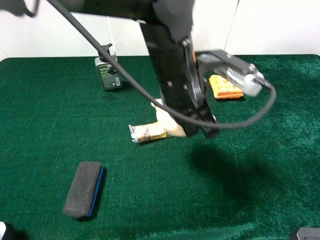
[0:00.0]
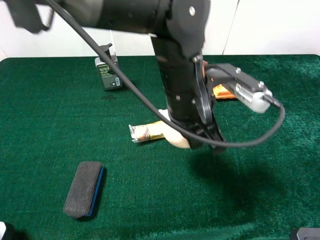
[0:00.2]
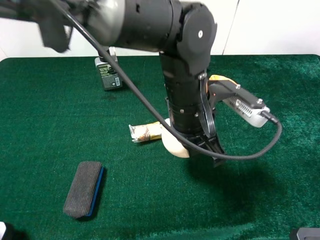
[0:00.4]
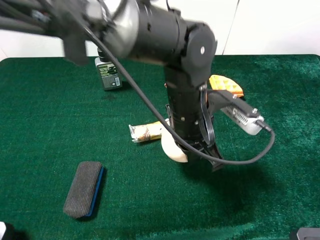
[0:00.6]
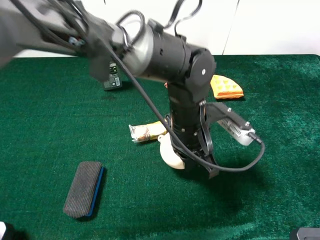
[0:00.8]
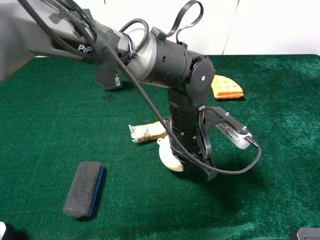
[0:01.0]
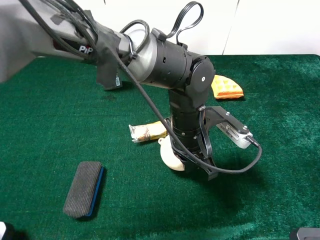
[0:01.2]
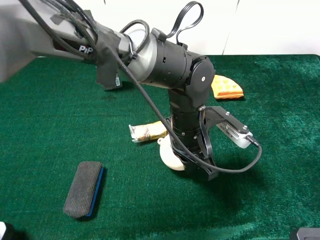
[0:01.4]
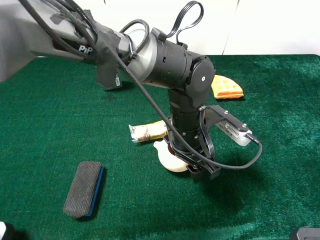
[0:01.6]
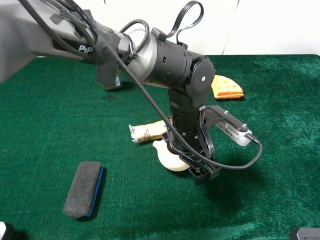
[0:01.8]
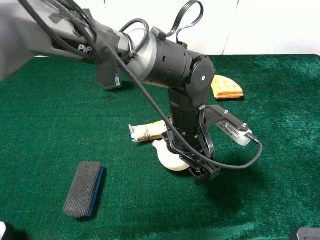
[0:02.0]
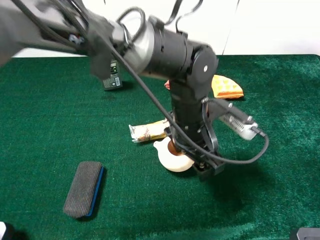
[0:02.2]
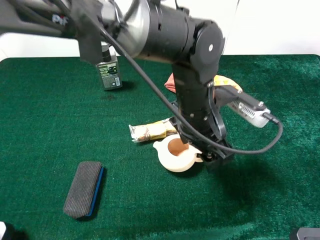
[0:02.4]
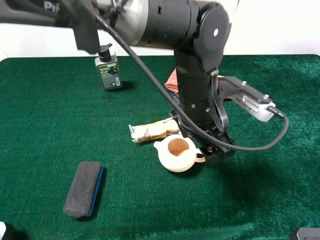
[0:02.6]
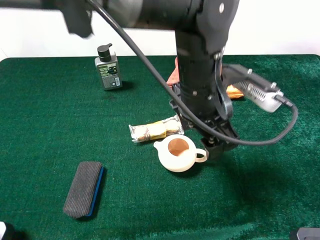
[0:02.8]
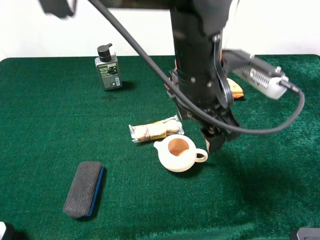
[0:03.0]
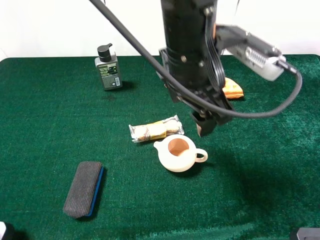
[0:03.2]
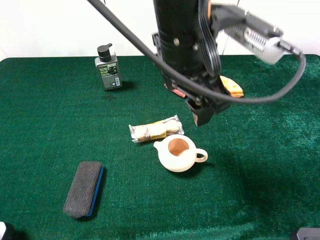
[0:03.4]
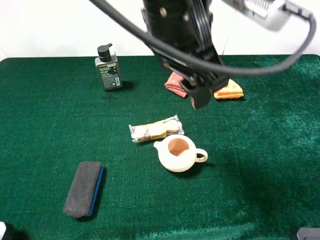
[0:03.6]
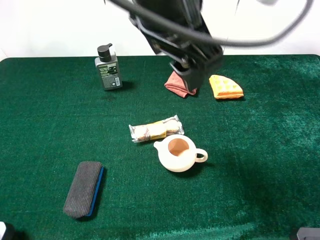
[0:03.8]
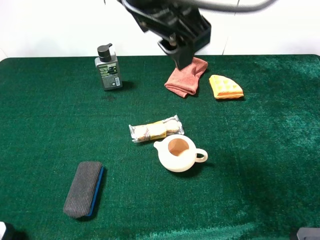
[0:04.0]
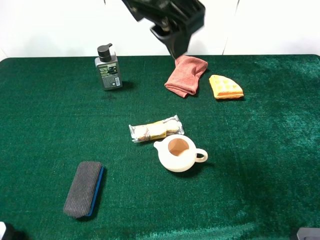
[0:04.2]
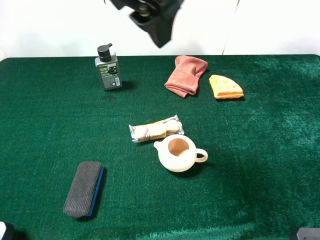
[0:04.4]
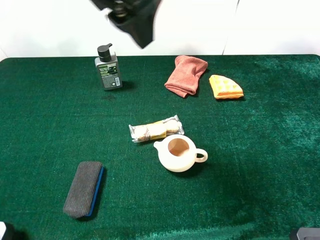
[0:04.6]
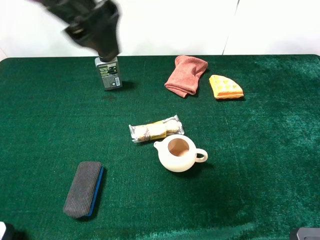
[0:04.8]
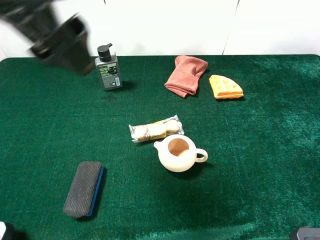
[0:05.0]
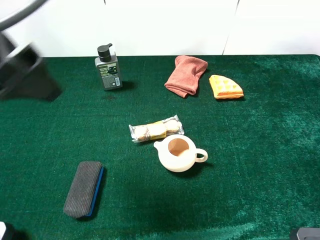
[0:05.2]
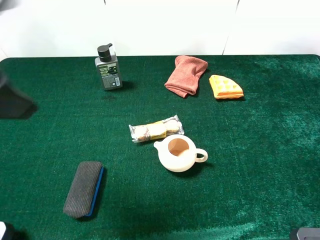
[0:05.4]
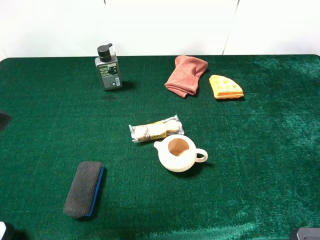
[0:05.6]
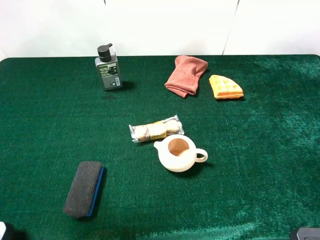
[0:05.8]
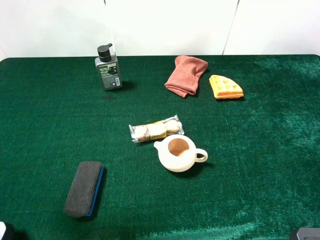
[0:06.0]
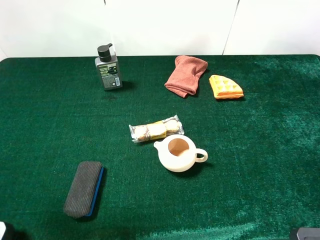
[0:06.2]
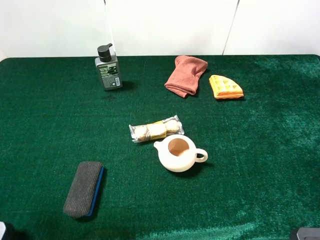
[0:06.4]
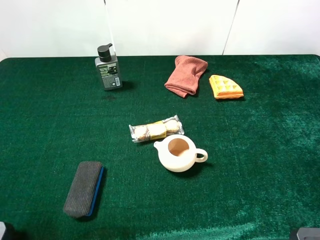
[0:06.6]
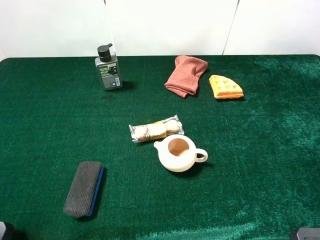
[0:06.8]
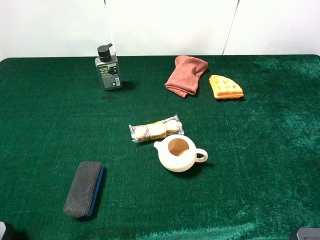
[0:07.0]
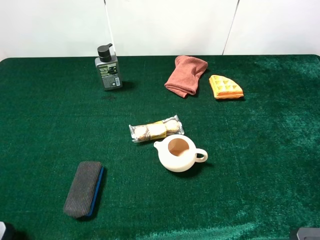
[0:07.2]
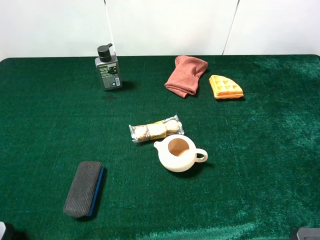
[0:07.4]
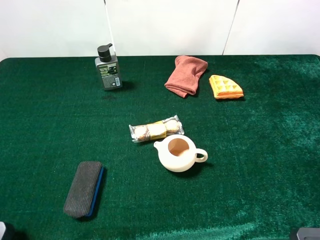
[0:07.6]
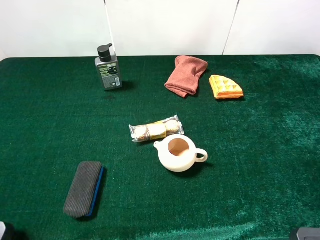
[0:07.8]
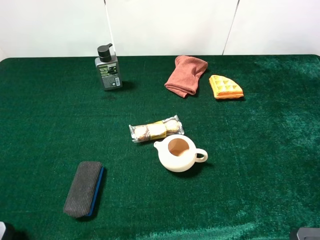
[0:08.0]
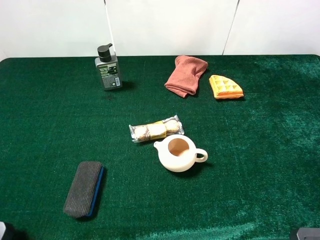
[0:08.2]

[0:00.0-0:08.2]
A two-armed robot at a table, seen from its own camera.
Task of the whole recording: the gripper move the object.
Step, 0:00.0 to 0:02.4: Place the blue blackboard earser on the table with the left gripper.
0:00.0 to 0:01.6: The left gripper goes approximately 10 cm downward, and opens up.
0:01.6 to 0:03.2: The left gripper moves upward, approximately 15 cm.
0:03.2 to 0:05.0: The left gripper moves to the left and upward, about 20 cm.
0:05.0 to 0:06.6: The left gripper travels to the left, backward and downward by some 20 cm.

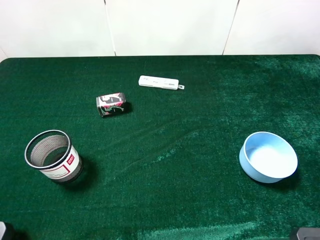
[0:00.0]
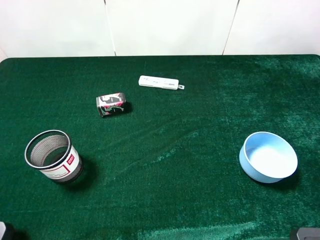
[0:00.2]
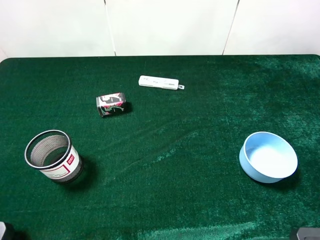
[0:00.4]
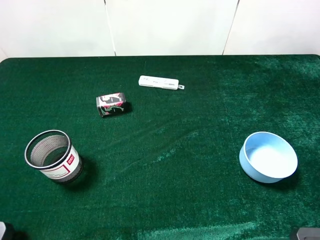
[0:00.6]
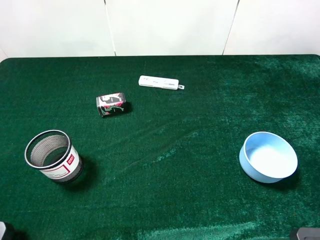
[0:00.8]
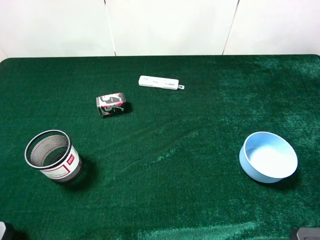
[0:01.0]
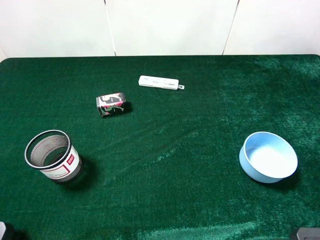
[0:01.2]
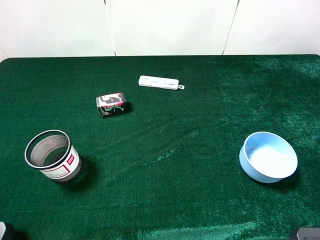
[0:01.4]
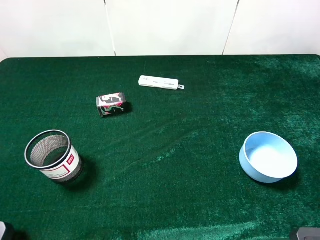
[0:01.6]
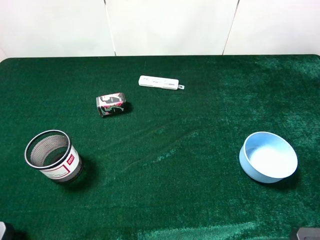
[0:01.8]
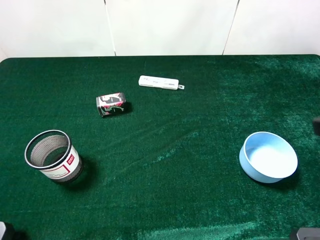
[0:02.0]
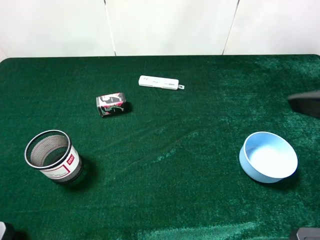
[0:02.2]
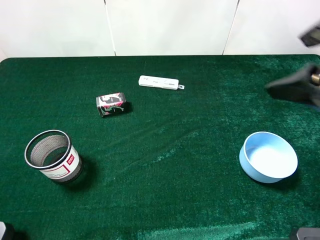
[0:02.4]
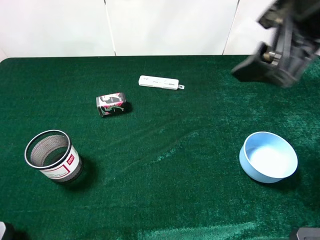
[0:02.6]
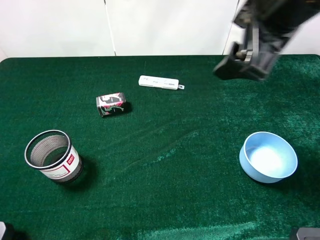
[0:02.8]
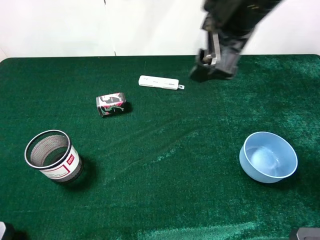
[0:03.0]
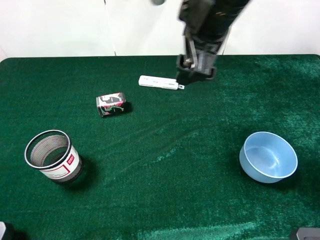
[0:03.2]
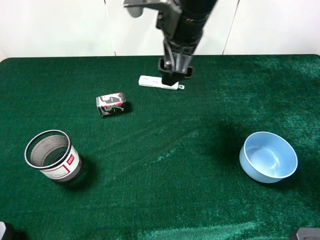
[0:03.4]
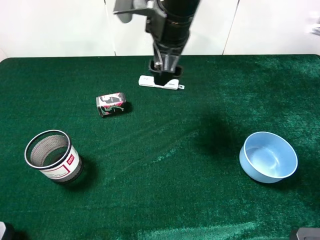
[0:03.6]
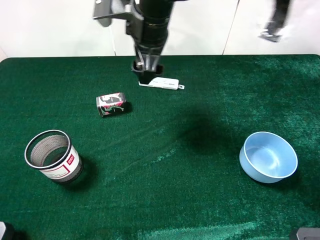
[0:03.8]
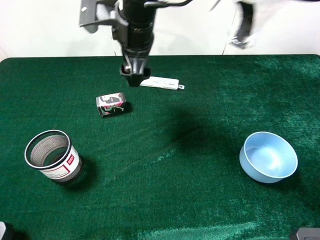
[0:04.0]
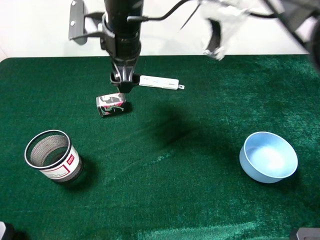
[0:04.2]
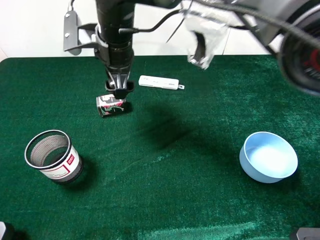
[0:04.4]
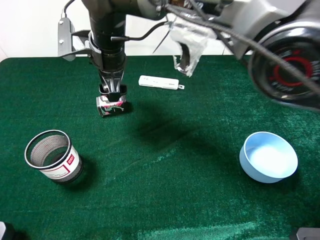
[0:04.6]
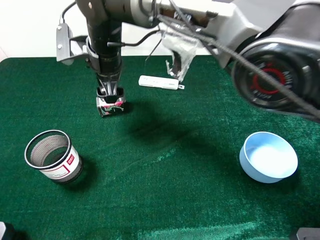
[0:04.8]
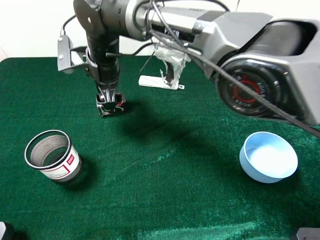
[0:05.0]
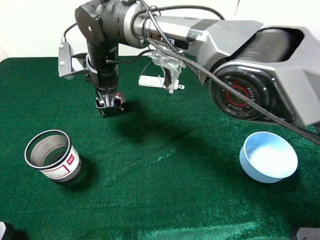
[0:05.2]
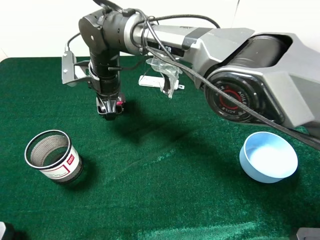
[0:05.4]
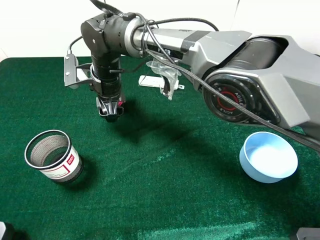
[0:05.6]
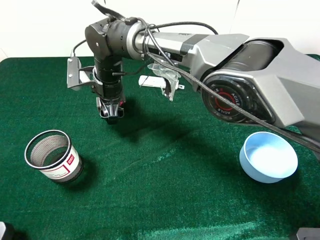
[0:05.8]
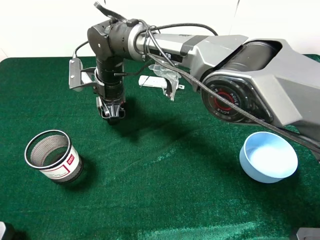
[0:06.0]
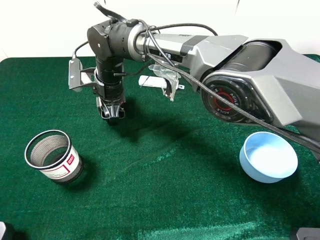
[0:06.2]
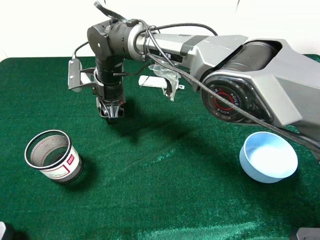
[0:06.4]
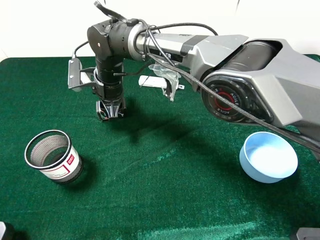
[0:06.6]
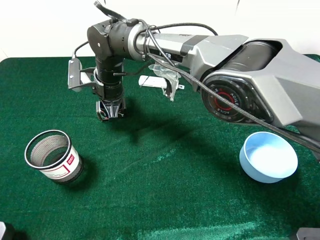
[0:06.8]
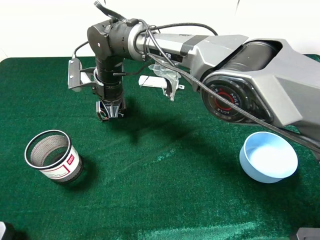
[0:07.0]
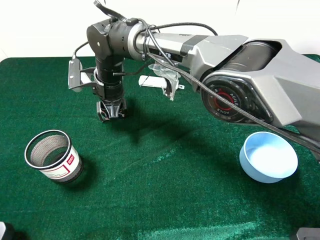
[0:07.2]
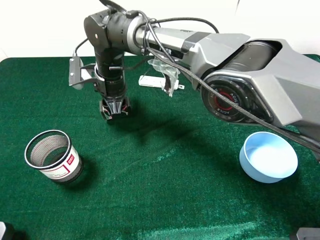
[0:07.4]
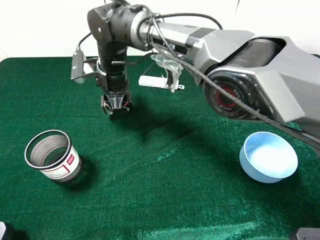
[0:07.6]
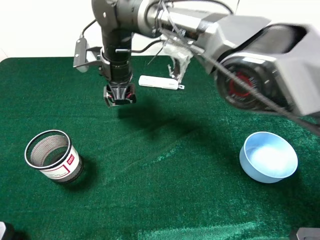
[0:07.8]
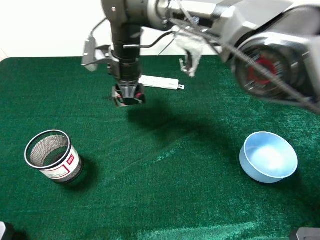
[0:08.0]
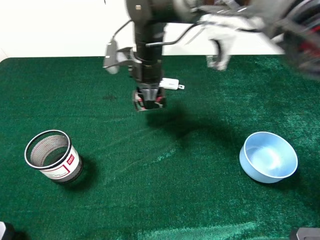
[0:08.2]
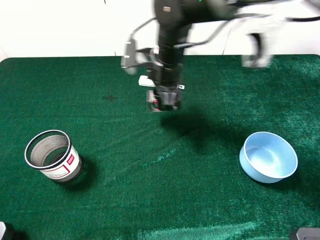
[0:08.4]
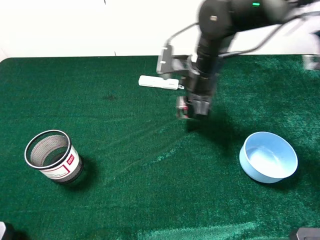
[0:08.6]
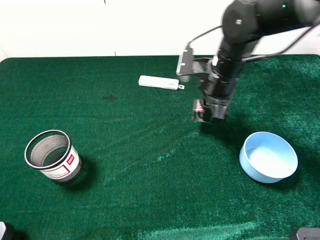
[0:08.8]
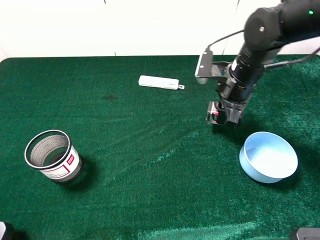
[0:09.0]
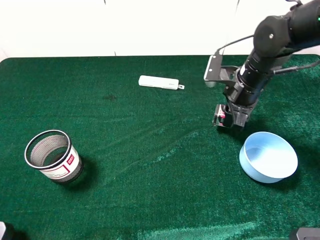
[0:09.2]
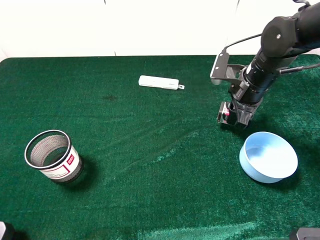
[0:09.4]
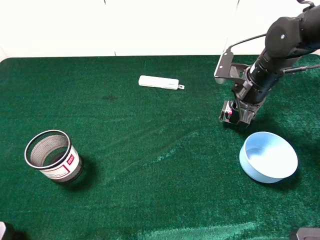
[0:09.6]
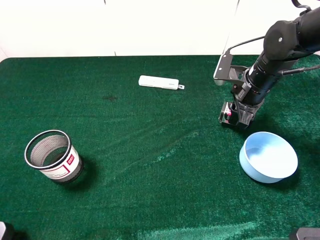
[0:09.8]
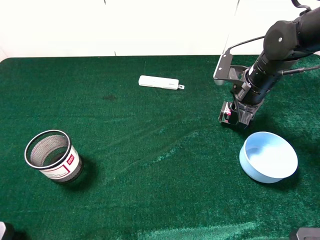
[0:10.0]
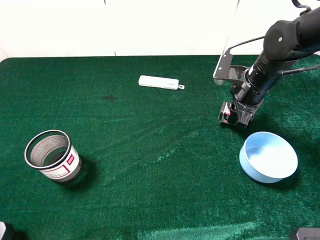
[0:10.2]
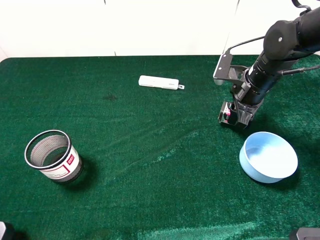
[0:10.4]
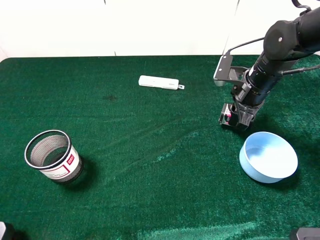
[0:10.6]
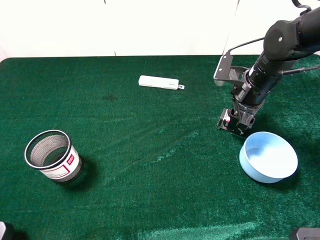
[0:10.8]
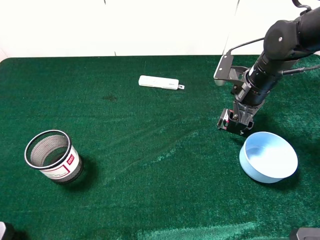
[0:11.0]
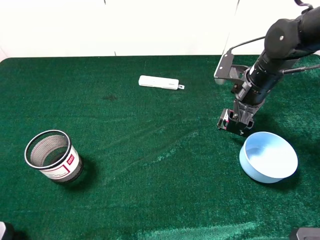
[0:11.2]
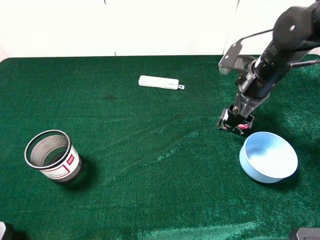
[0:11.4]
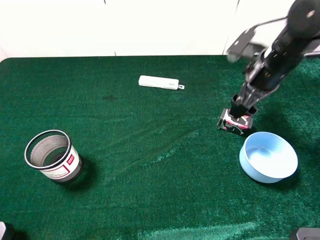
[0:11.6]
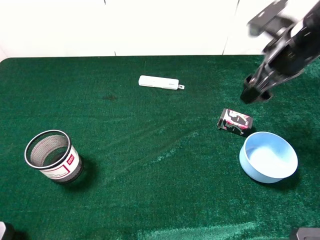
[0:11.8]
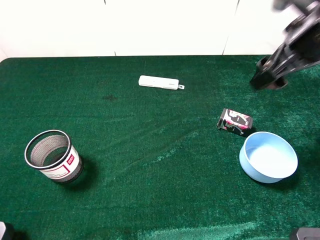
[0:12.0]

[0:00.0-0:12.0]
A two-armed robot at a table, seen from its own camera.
Task of the whole recording: the gripper move the object.
Step, 0:00.0 to 0:06.4: Grasp the square chewing gum with the right gripper.
Step, 0:06.6 to 0:10.8: Place the square chewing gum on the table with the right gripper.
0:01.6 to 0:03.0: The right gripper moves forward and to the left, some 30 cm.
0:03.0 to 0:04.4: The right gripper heads to the left, downward and forward, covering roughly 25 cm.
0:04.4 to 0:06.0: The right gripper travels downward by some 10 cm.
0:06.0 to 0:07.6: The right gripper closes up.
0:07.6 to 0:09.0: The right gripper travels to the right by roughly 25 cm.
0:09.0 to 0:10.4: The right gripper heads to the right, covering approximately 5 cm.
0:10.4 to 0:12.0: The right gripper heads upward, covering about 10 cm, and opens up.

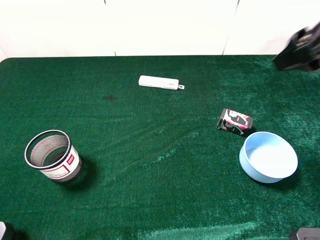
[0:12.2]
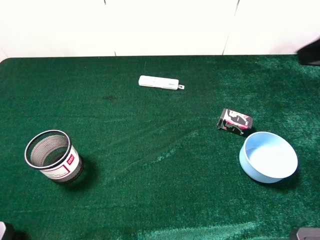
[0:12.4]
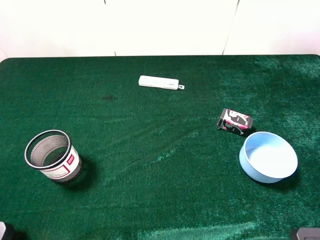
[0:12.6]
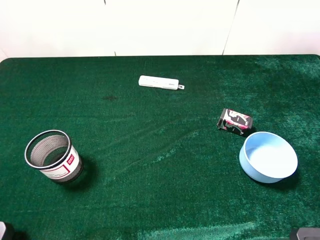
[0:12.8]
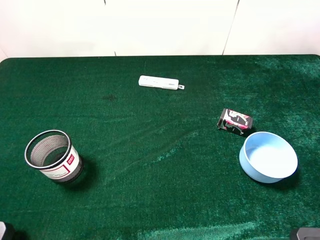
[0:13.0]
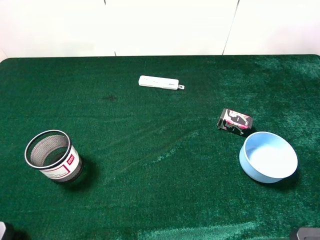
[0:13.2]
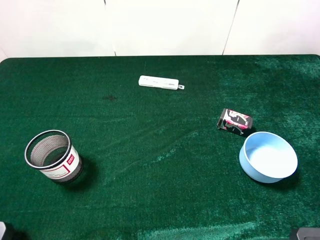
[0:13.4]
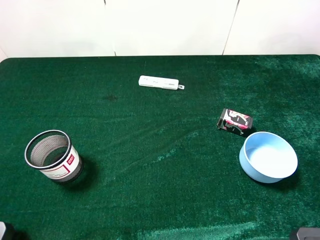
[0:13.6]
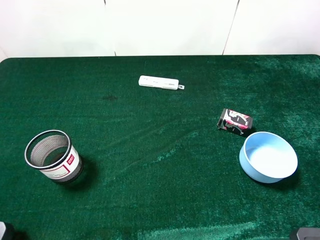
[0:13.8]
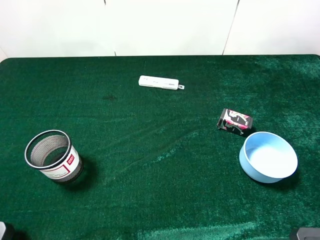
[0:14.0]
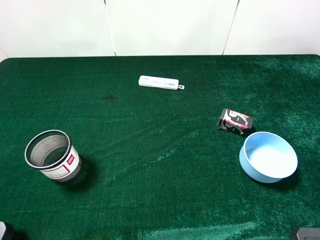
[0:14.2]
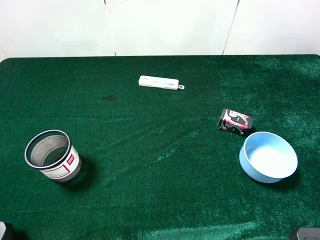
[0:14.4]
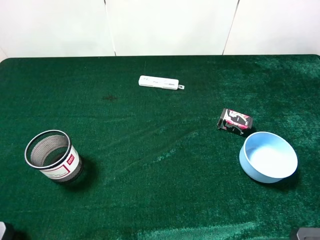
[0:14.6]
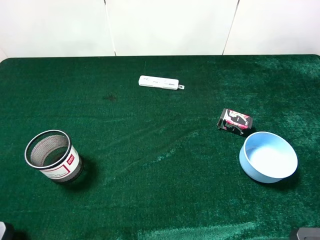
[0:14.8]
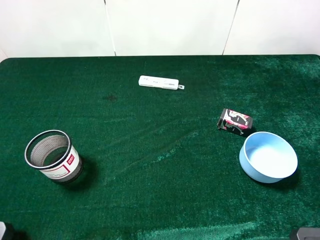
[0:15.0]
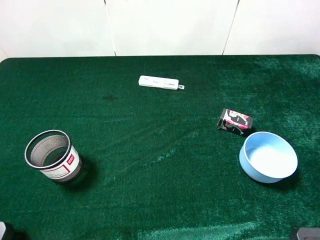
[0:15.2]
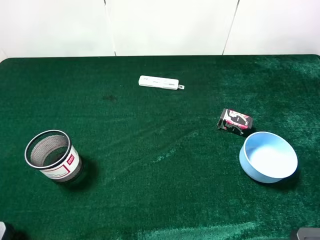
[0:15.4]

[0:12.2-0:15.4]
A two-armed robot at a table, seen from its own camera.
Task of the whole recording: the gripper move the object.
0:12.2 to 0:13.8: The right gripper goes about 25 cm backward.
0:13.8 to 0:15.4: Both grippers stay about where they are.
